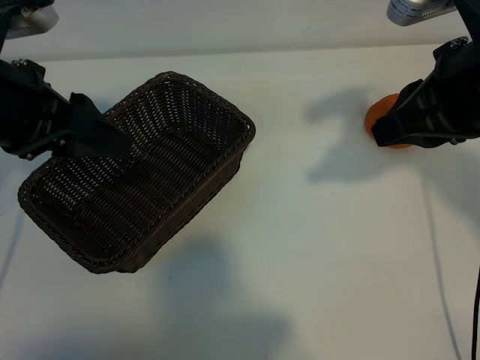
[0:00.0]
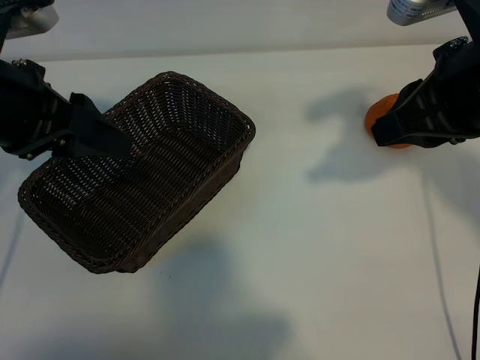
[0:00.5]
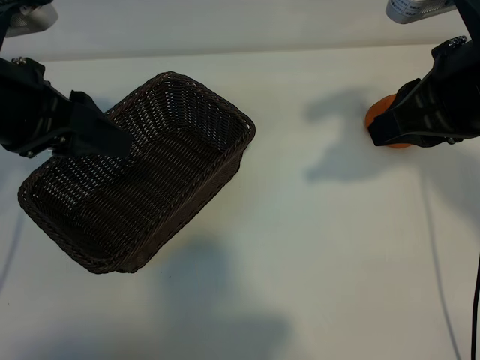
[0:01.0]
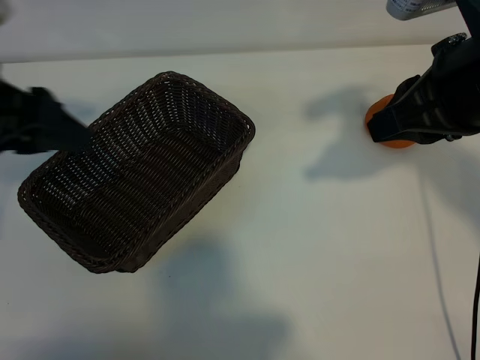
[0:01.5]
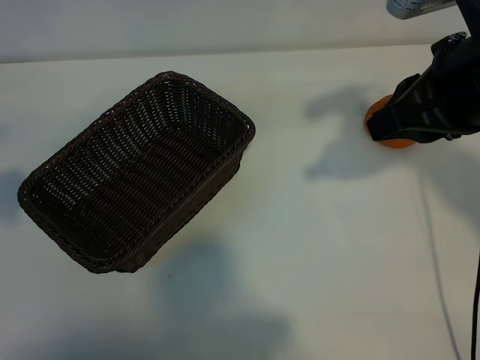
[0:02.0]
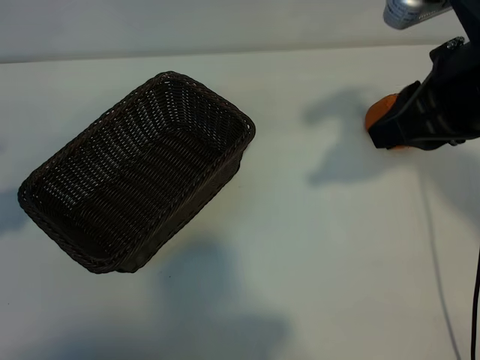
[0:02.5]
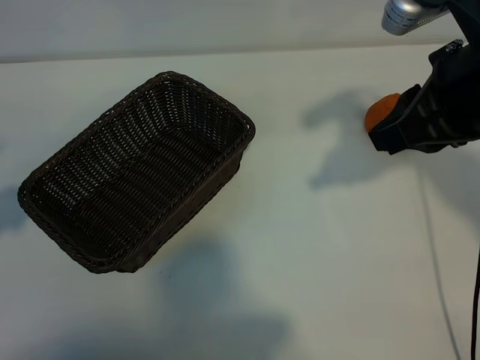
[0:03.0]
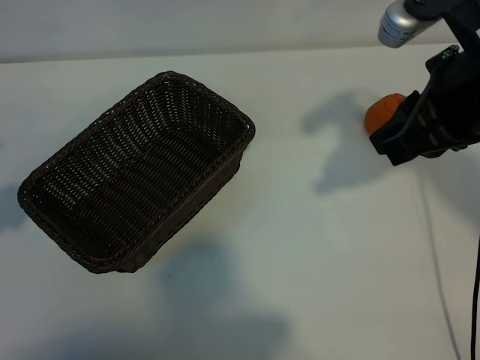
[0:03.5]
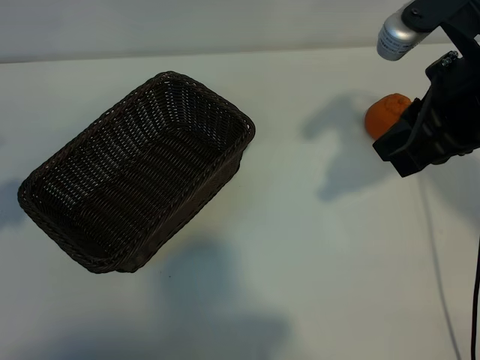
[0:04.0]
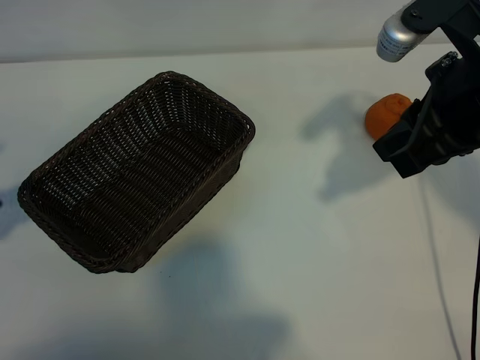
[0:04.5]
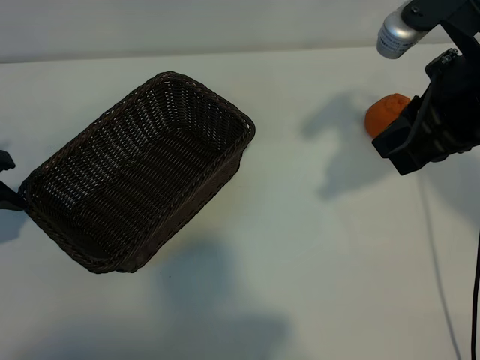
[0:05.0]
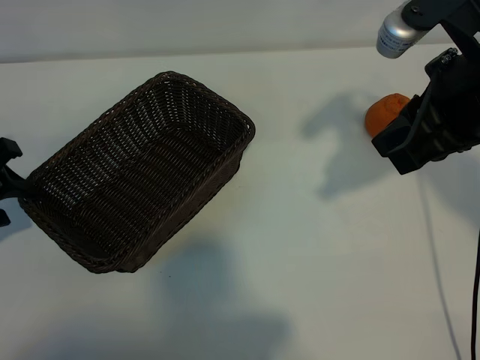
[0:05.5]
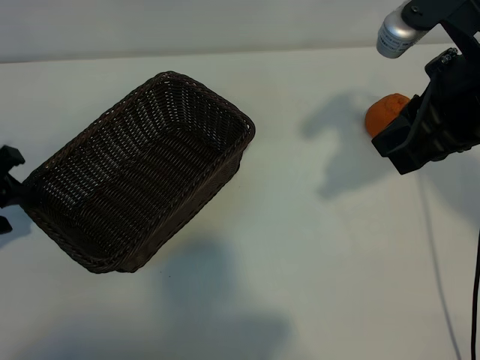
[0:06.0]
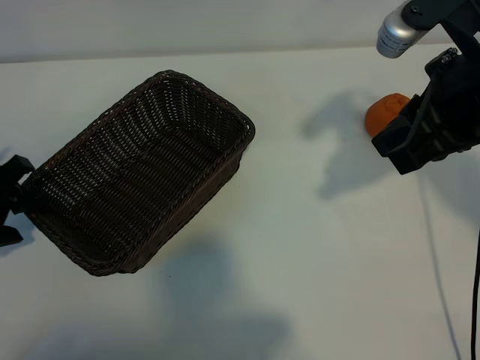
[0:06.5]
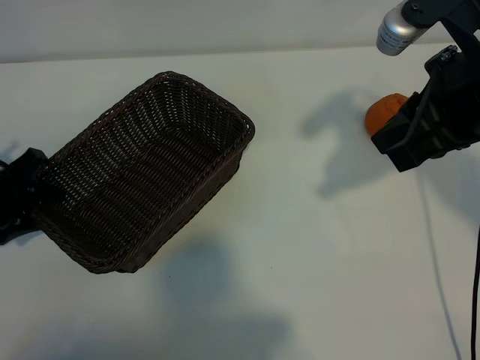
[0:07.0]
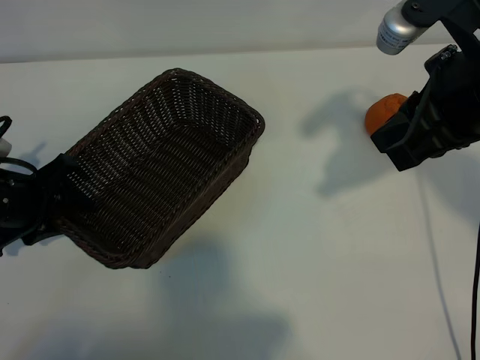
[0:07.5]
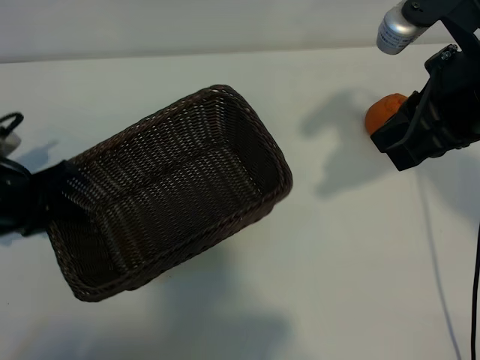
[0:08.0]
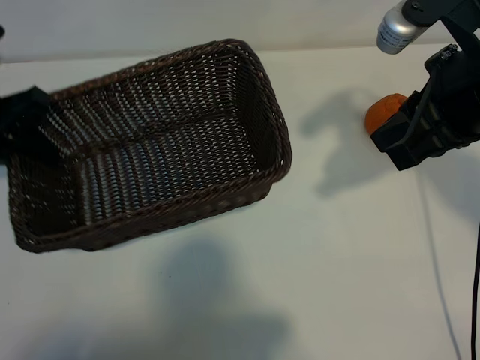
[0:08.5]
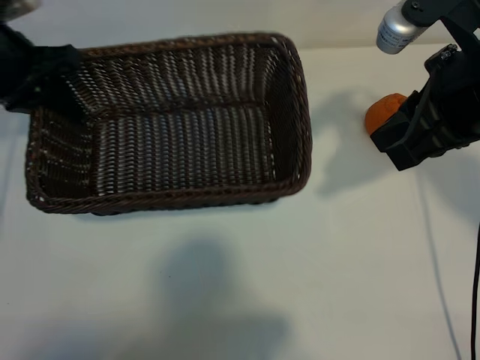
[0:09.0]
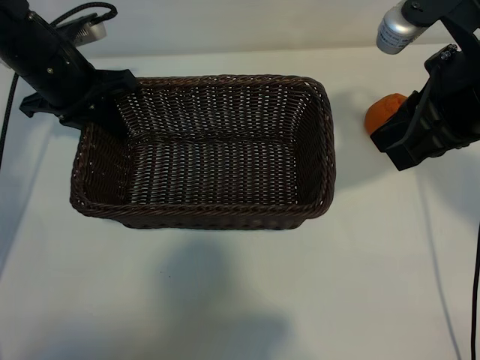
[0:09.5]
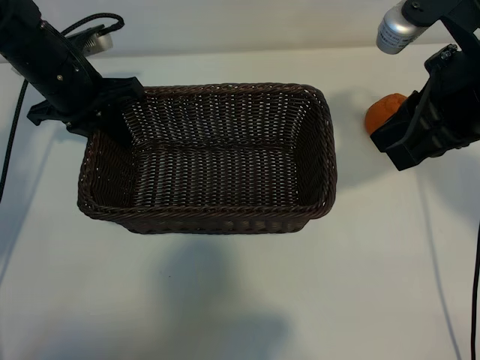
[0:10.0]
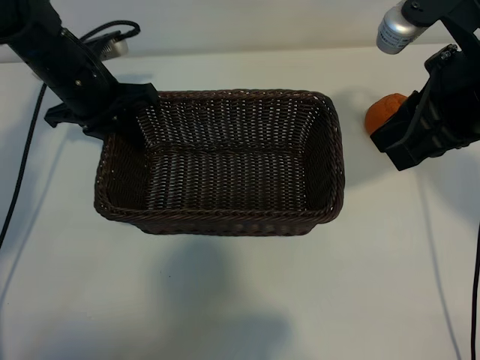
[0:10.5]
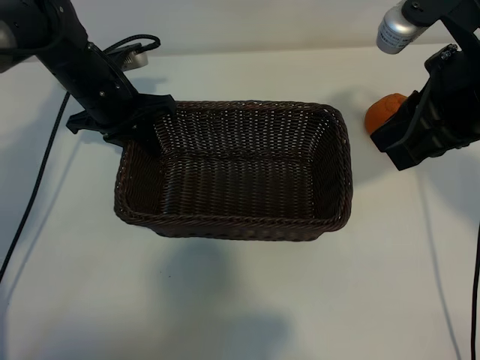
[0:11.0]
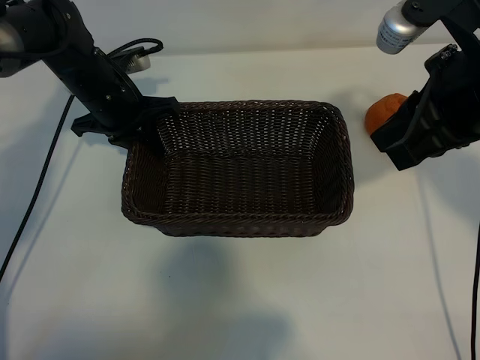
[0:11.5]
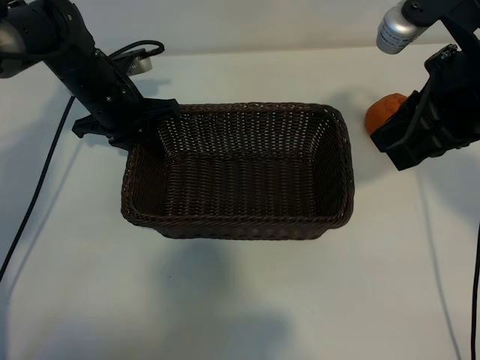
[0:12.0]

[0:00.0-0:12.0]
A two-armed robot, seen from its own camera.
Task of the whole recording: pick up the orange and put it into the basket.
Step, 0:01.0 to 0:07.5: Grasp the basket with left gripper.

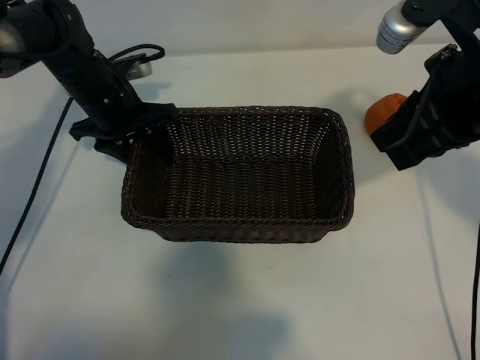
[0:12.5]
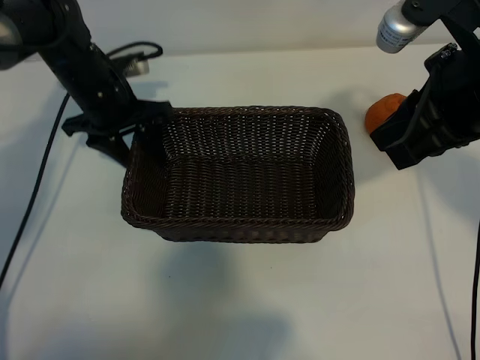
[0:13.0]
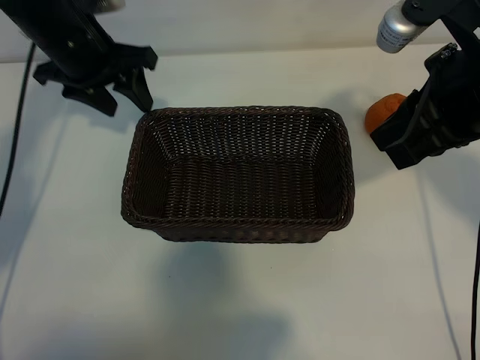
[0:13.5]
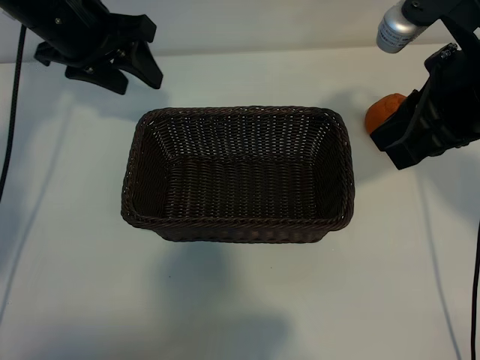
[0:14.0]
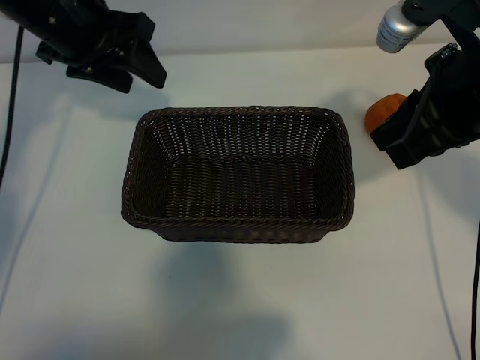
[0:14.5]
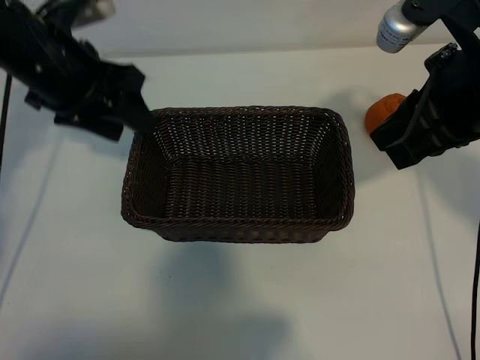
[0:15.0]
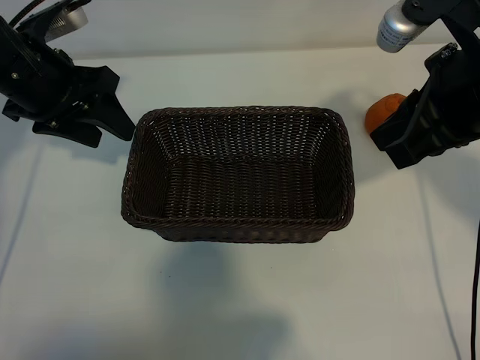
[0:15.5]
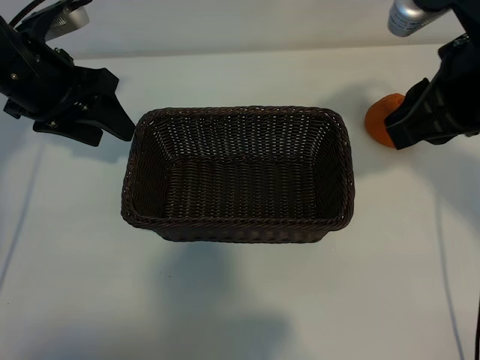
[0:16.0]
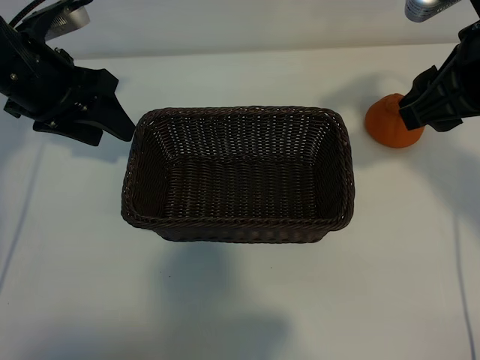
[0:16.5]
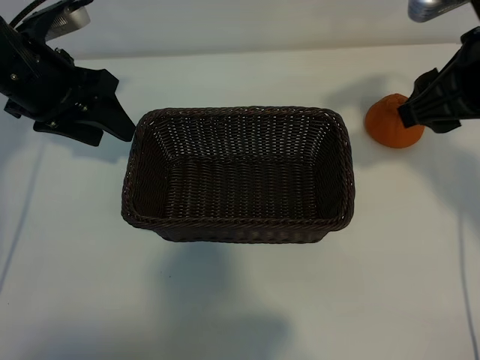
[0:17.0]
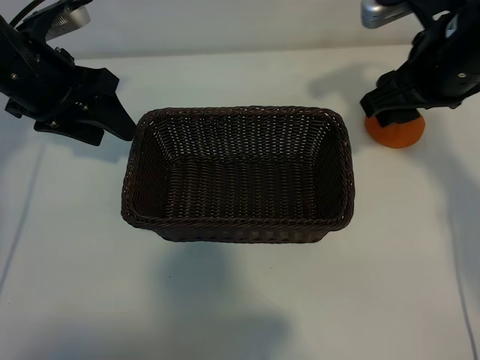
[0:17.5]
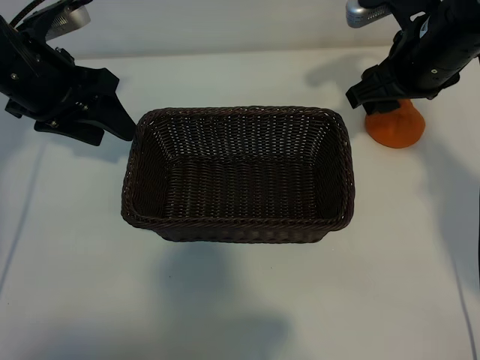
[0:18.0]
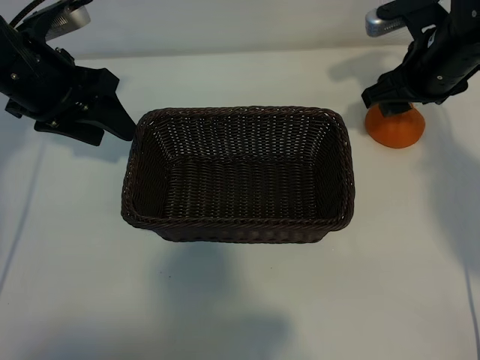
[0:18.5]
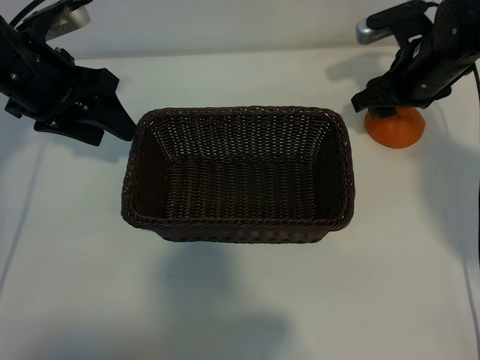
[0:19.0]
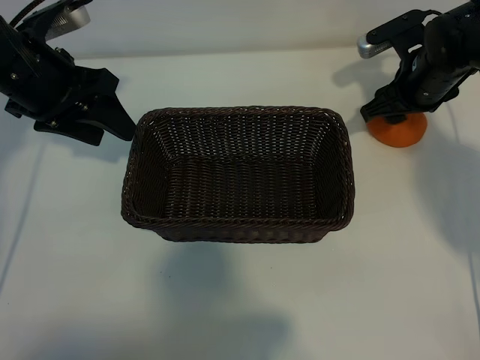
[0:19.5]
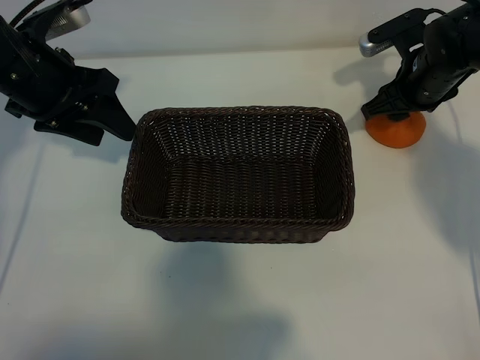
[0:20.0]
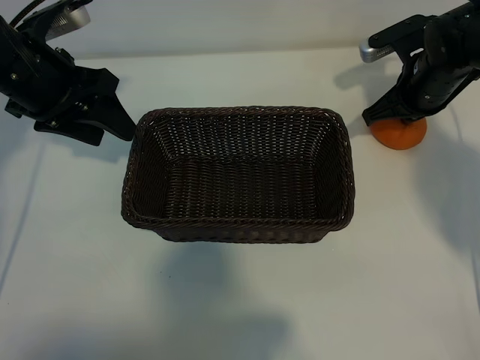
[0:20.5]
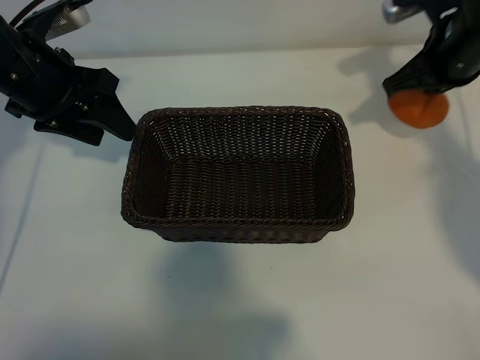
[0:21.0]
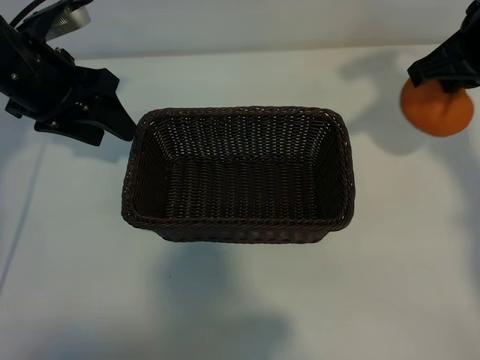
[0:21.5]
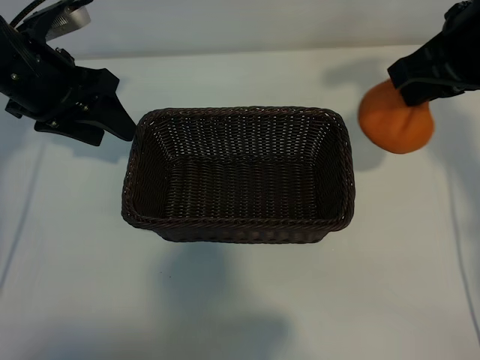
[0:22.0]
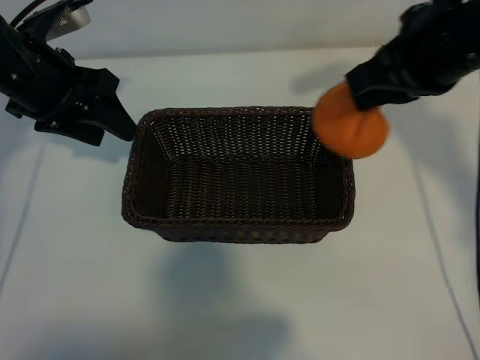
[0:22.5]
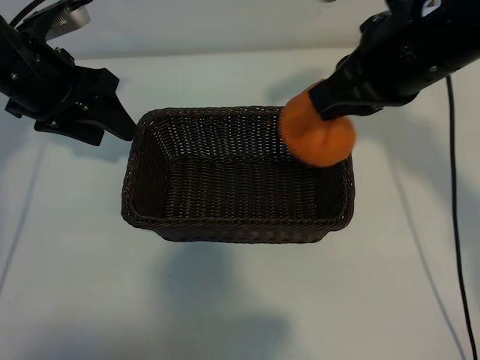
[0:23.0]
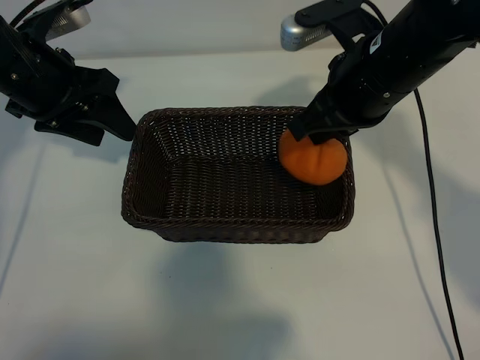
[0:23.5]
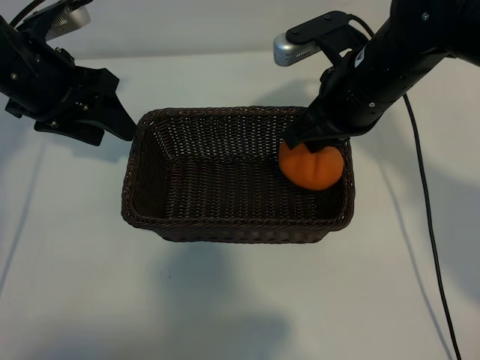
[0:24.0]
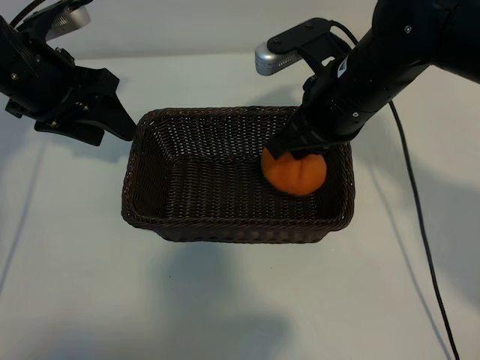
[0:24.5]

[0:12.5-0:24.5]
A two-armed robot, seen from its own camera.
Task of the whole recording: pick up the orange and put it into the basket.
Step, 0:12.5 to 0:20.5: Grasp the orange with right gripper.
